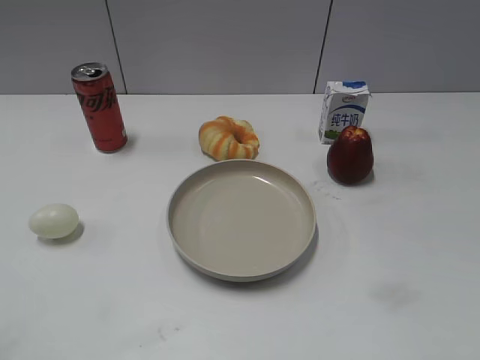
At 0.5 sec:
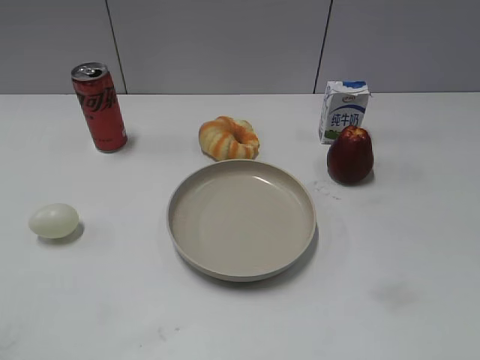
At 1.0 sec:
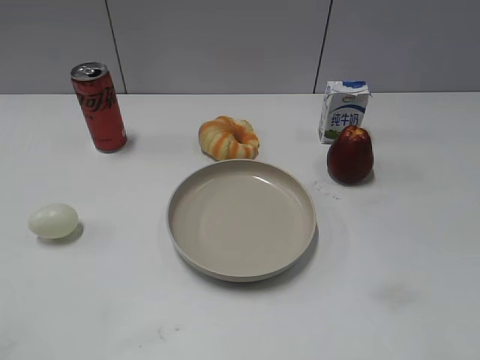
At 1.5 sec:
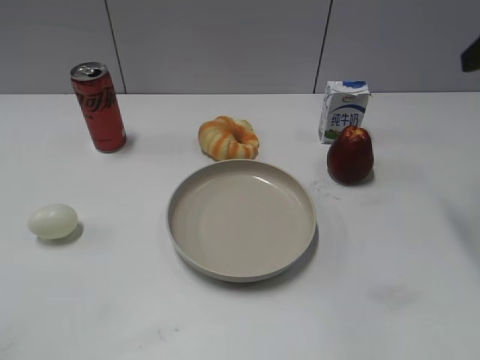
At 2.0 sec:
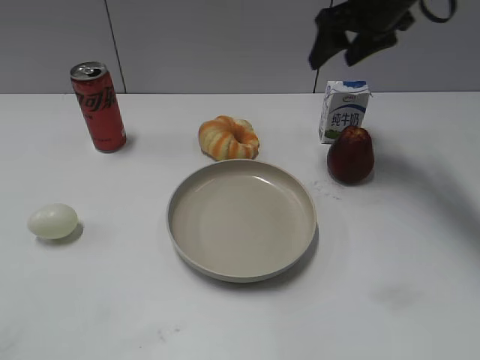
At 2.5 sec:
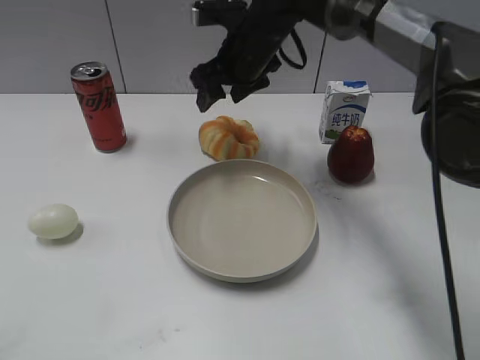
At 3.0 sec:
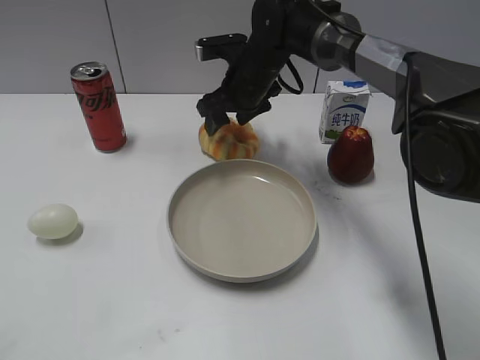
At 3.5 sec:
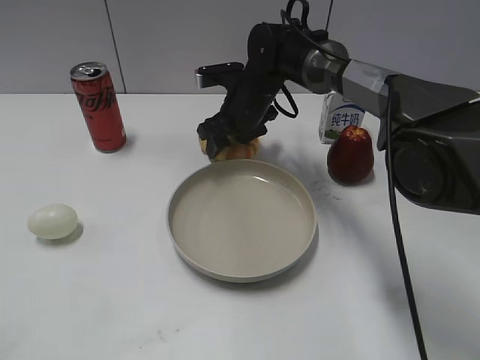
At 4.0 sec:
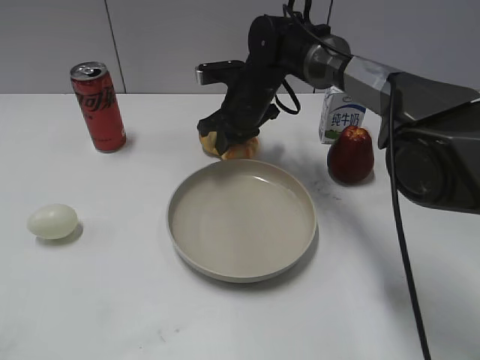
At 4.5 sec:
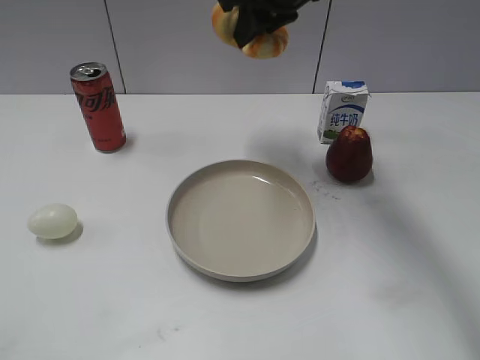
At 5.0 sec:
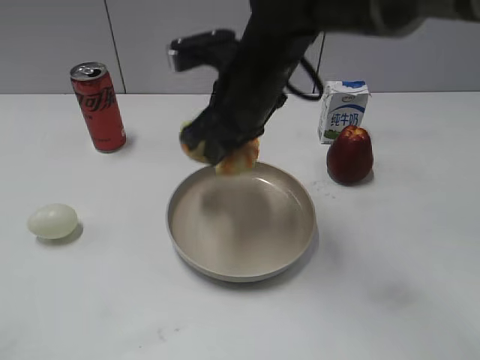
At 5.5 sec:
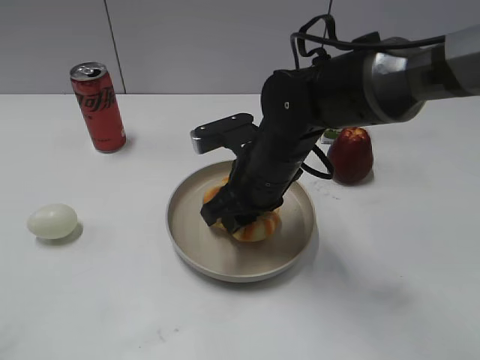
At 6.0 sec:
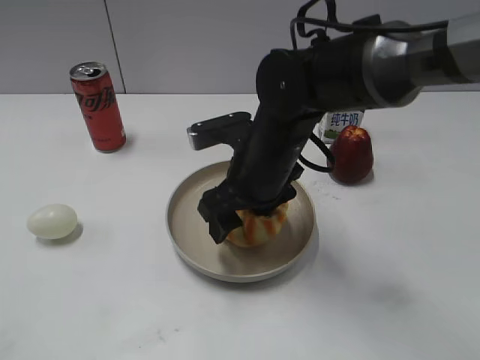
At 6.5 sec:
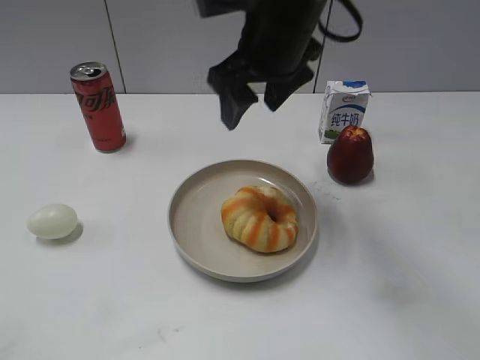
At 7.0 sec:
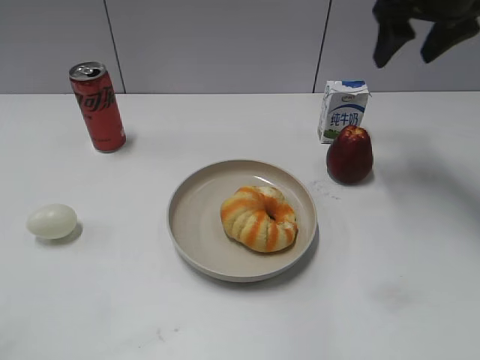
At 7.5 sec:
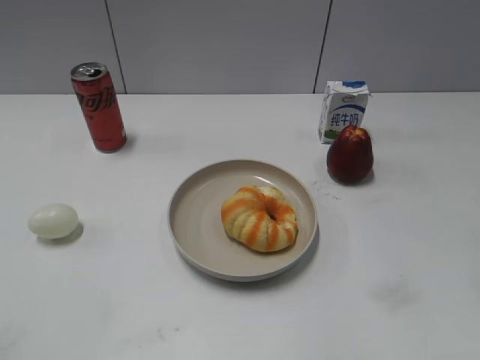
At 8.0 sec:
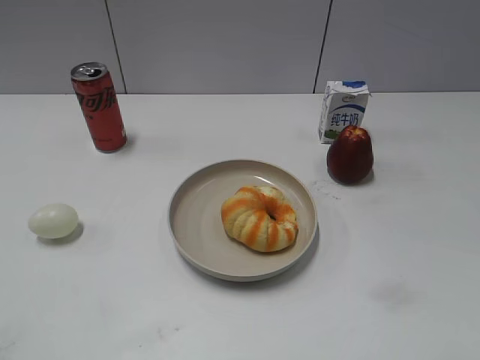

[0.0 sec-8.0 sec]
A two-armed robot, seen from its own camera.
Step, 1.0 sec to 3.5 sec: Grasp the round bread with right gripper.
Step, 4.0 sec to 6.0 sec: Place the round bread on the plate with right gripper.
2.0 sec to 4.0 sec: The right gripper goes some 20 cm downward and to the left, and closes up.
4.0 sec to 6.0 sec: The right gripper travels backward by some 15 cm, moves some 20 cm upward and comes back, and opens.
6.0 sec to 8.0 sec: The right gripper travels to the right, backward and upward by approximately 35 cm.

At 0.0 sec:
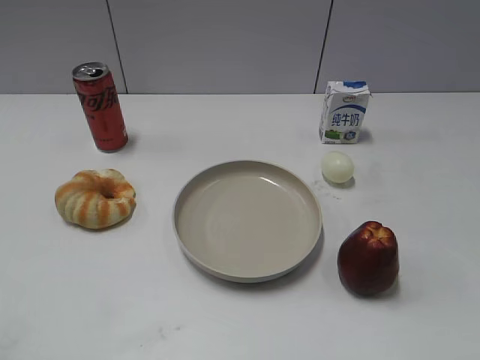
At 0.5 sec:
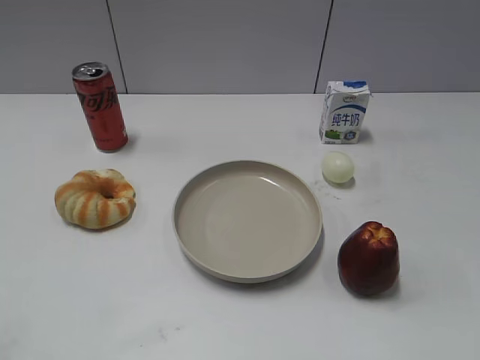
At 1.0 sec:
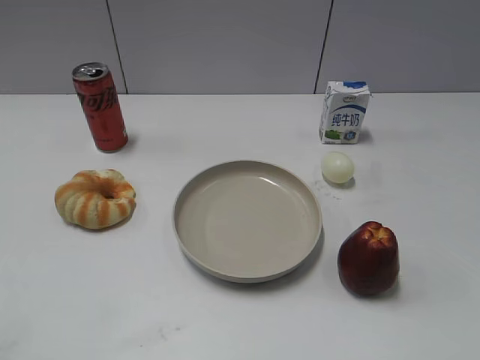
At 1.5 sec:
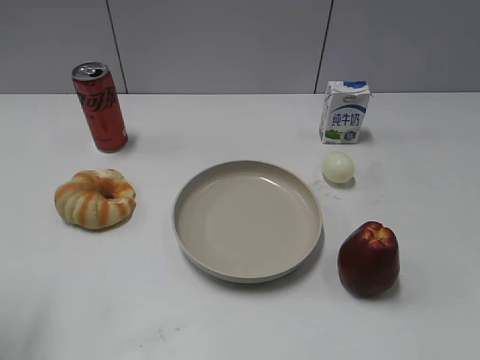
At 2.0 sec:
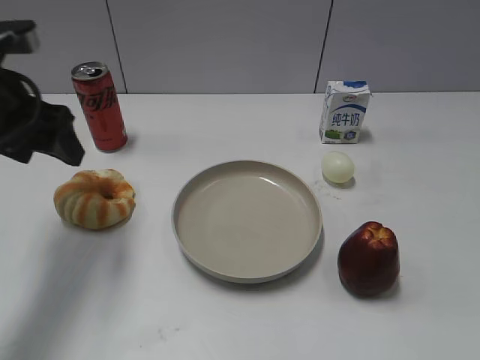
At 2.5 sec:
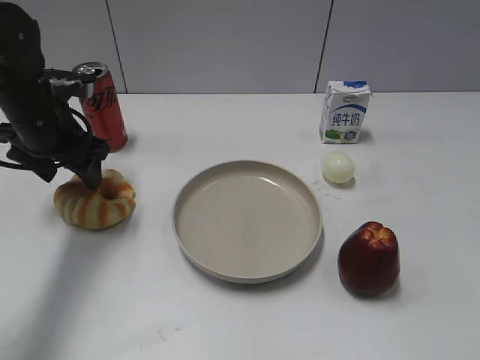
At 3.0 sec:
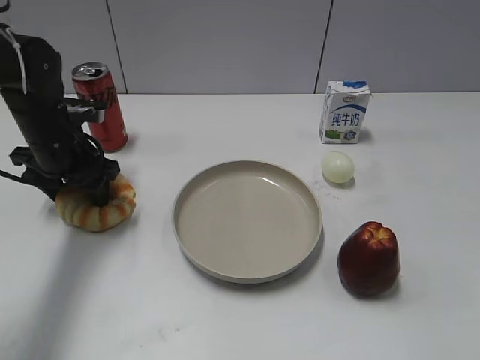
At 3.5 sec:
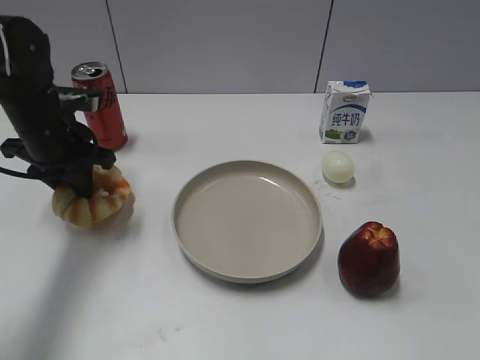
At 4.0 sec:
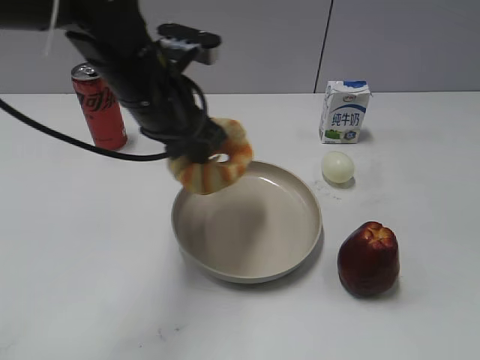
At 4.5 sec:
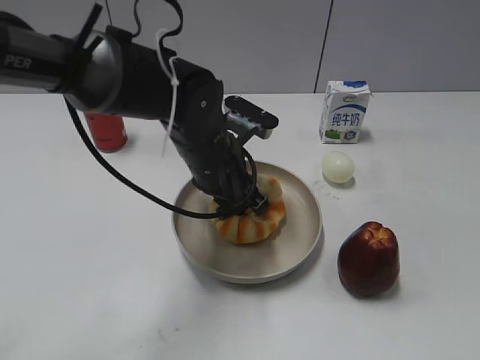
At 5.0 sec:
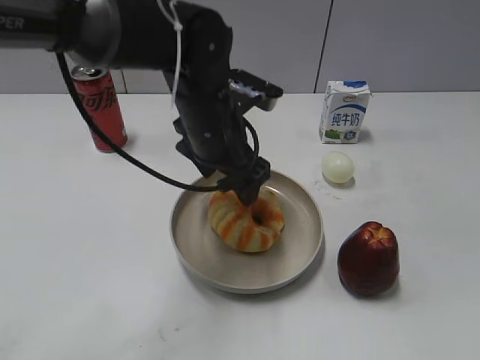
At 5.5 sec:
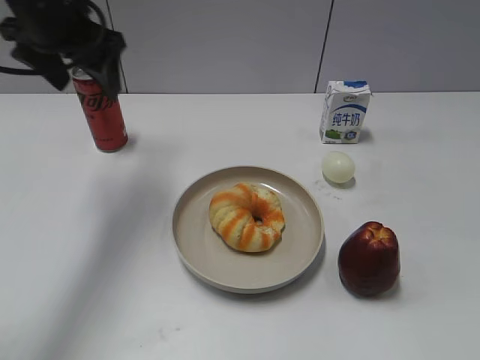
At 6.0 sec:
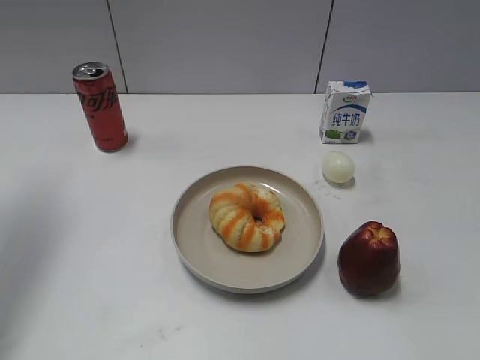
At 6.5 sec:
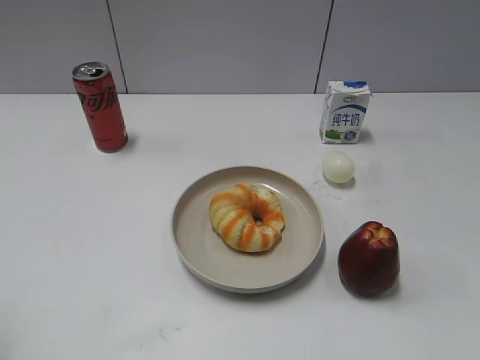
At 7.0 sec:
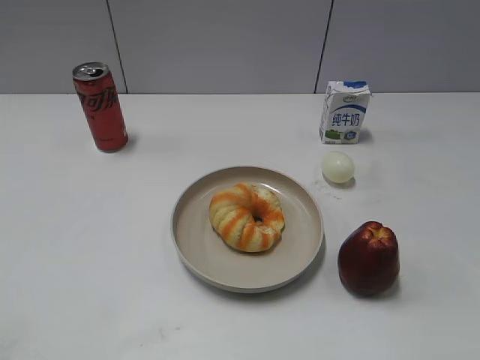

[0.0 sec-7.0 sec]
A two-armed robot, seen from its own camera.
Step, 1.0 sec to 3.0 sec: Grasp the round bread with left gripper.
Step, 3.5 sec to 5.0 sec: Place the round bread on the plate with left gripper.
2.0 sec to 3.5 sec: The left gripper travels downward and forward by some 10 cm, and closes up.
3.5 sec to 5.0 sec: The left gripper heads to the right, covering approximately 20 cm, and opens its fingers.
5.0 sec to 7.0 sec: The left gripper travels to the left and backward by some 40 cm.
